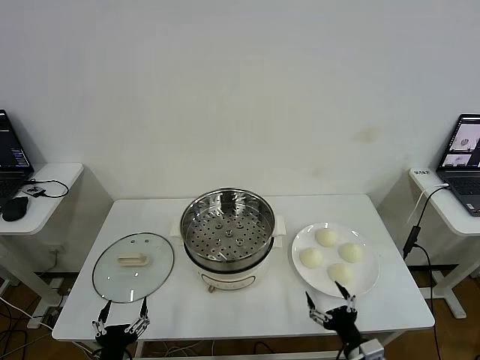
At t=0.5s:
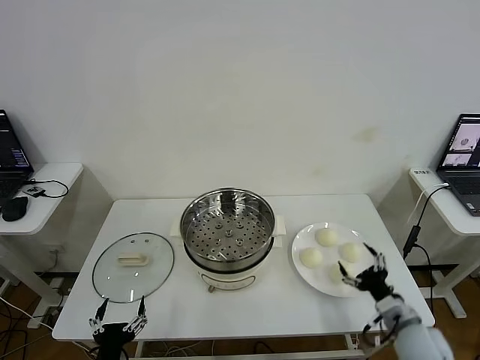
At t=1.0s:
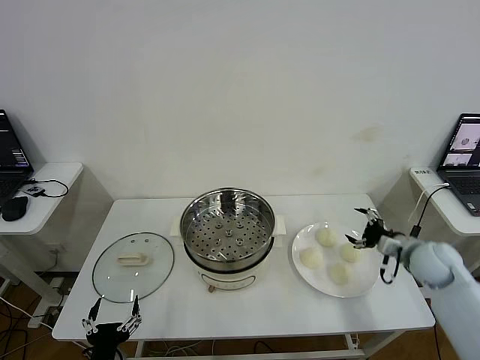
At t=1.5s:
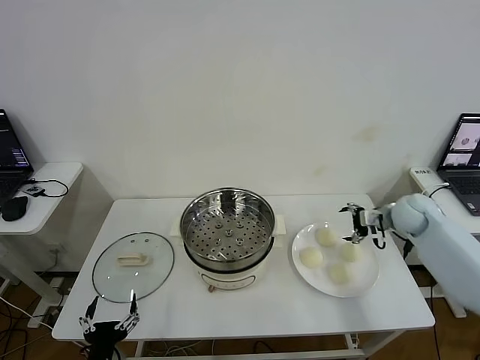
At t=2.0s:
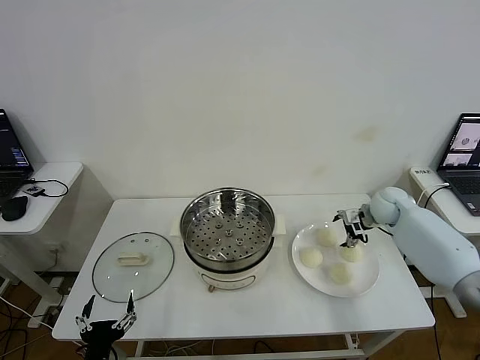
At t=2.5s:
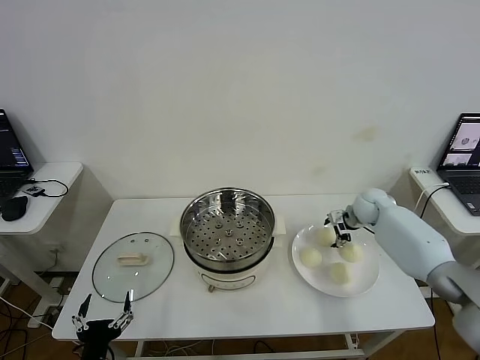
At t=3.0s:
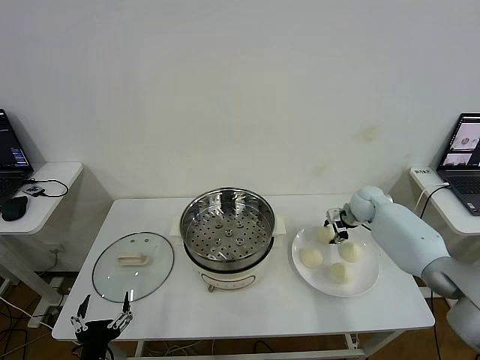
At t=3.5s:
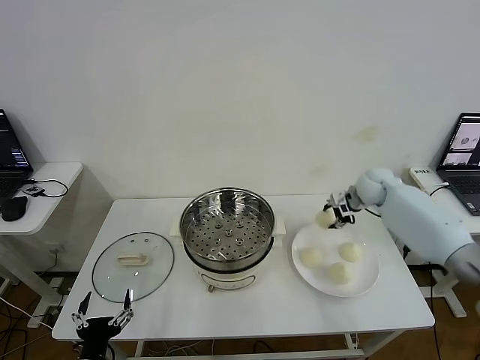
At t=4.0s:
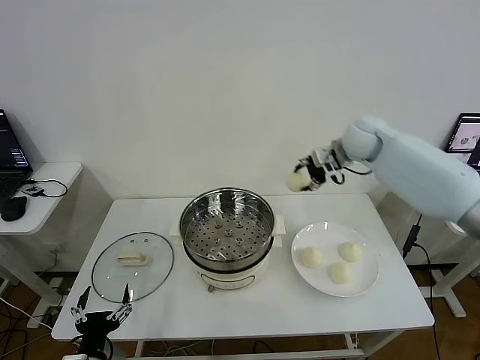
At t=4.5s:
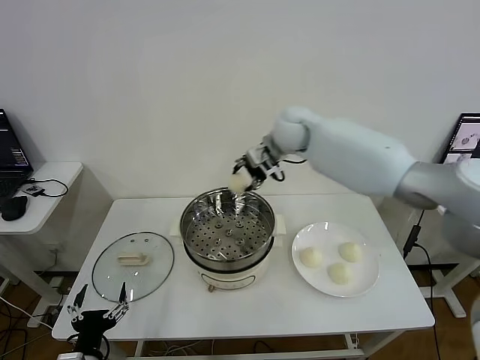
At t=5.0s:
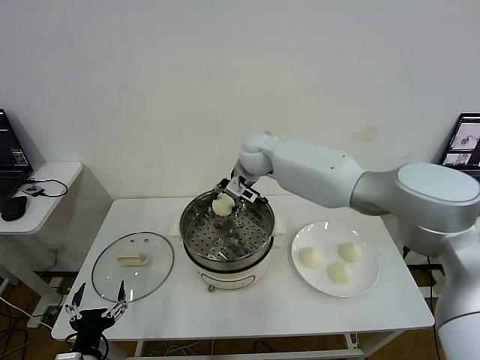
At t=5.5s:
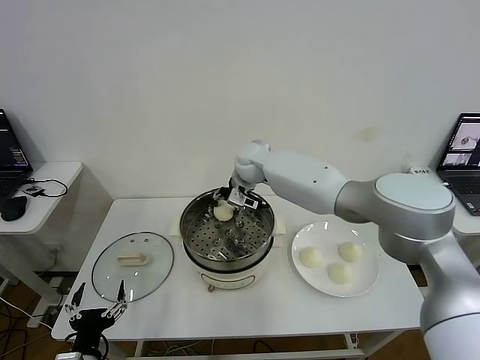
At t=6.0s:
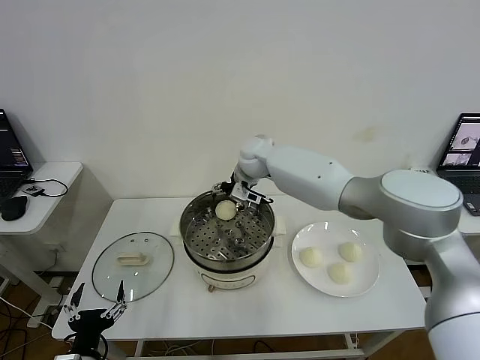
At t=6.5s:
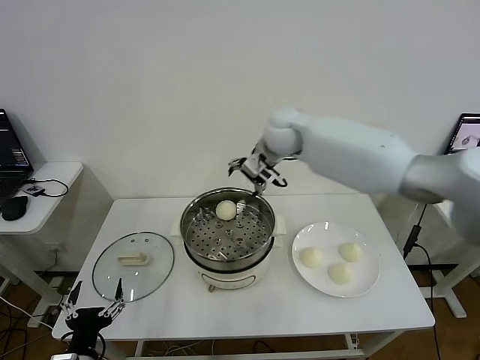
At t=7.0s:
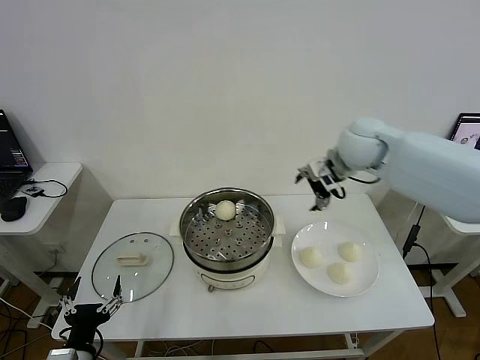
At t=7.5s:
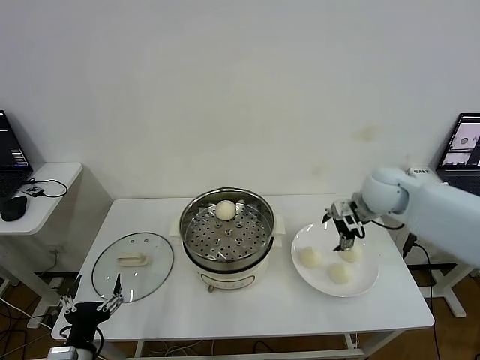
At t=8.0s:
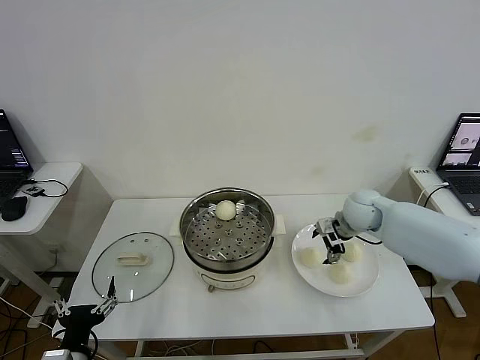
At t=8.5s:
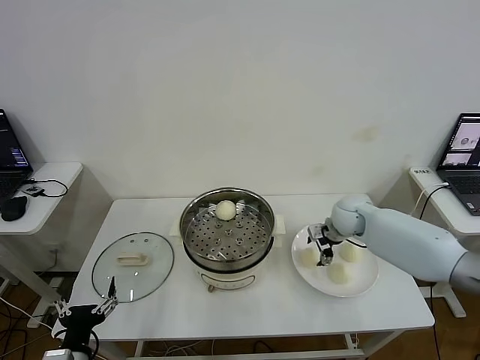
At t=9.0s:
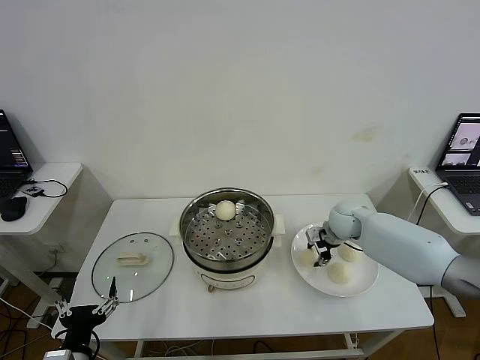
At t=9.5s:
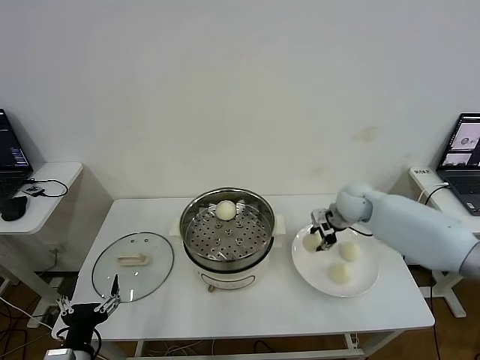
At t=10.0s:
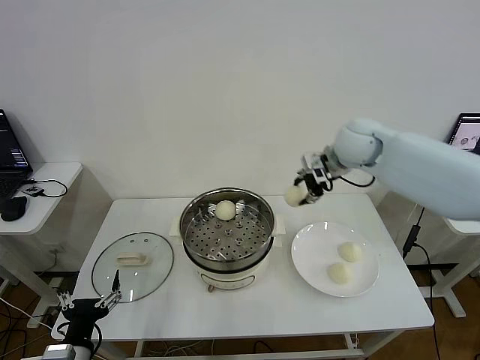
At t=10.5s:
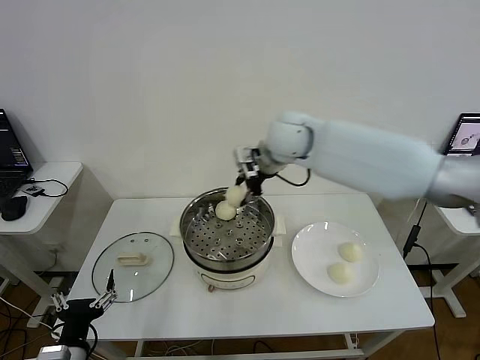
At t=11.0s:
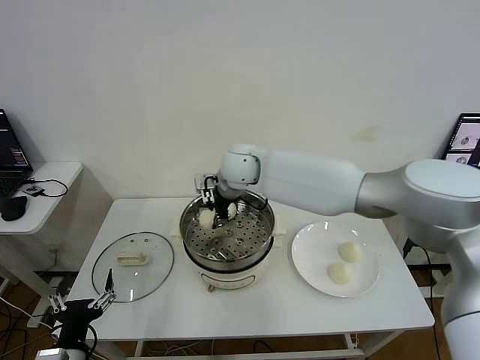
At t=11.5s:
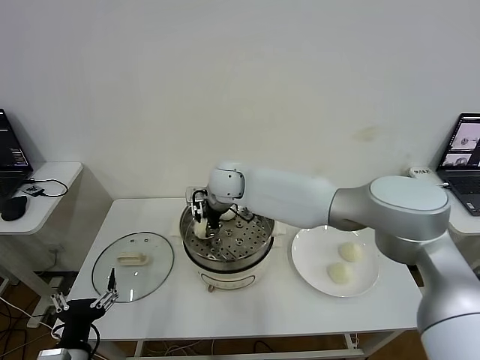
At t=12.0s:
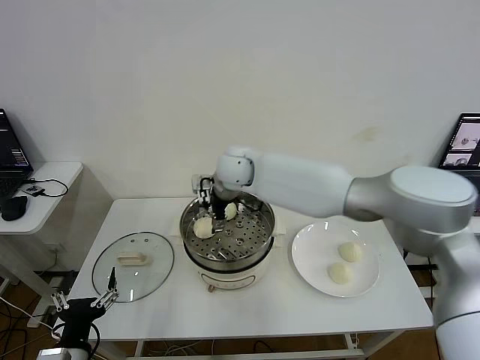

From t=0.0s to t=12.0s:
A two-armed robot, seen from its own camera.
Step, from t=0.0s to t=2.5s: Grasp the baozi in the plate with right gripper.
Step, from t=3.0s to t=5.5s: Place the baozi on the steamer with right gripper.
Step, from t=6.0s to t=9.0s: Grasp the baozi in the plate with right gripper.
Step, from t=9.5s to t=11.5s: Place the baozi on the steamer with right gripper.
From t=2.0s to t=4.0s: The right gripper shifts about 25 cm upward and to the left, and closes its fingers.
From t=4.0s to t=6.0s: The right gripper is displaced to the left by some 20 cm, and opens up.
From t=6.0s to t=8.0s: The right gripper heads to the right and downward, covering about 25 cm.
From t=8.0s to t=10.0s: The right gripper is displaced upward by some 20 cm, and closes its fingers.
From t=10.0s to t=12.0s: The right gripper is displaced to the left by approximately 20 cm, and opens up.

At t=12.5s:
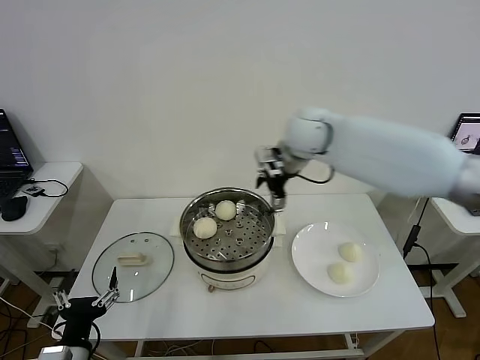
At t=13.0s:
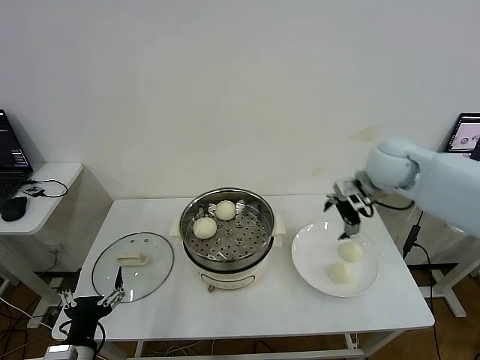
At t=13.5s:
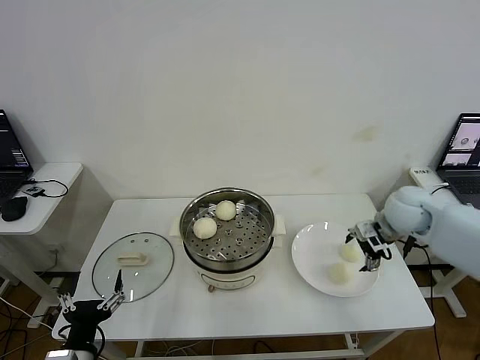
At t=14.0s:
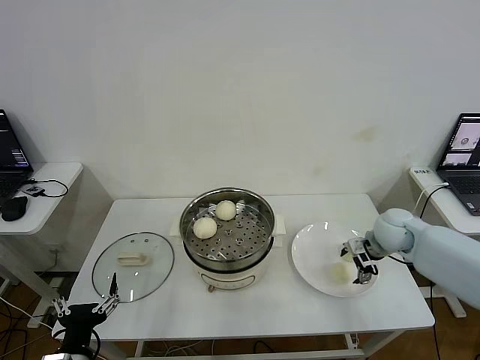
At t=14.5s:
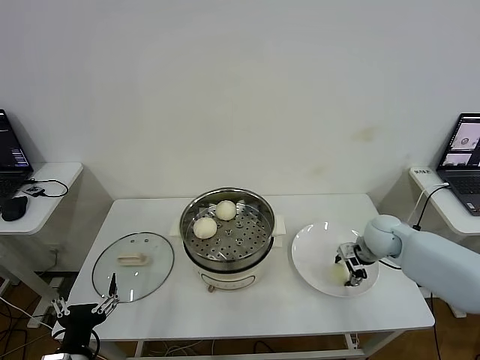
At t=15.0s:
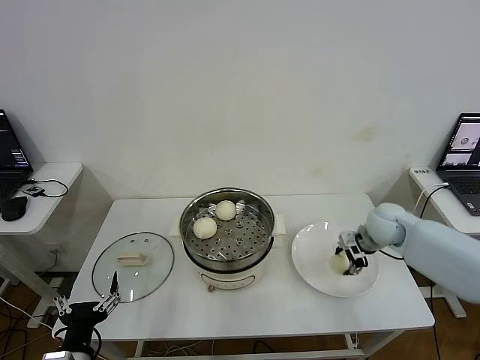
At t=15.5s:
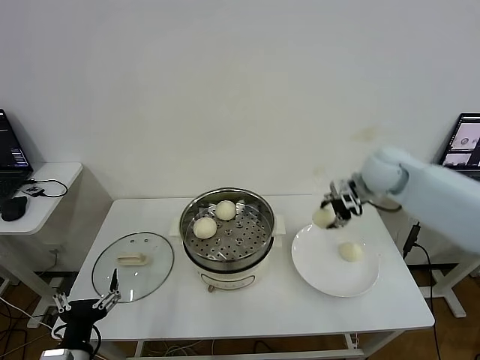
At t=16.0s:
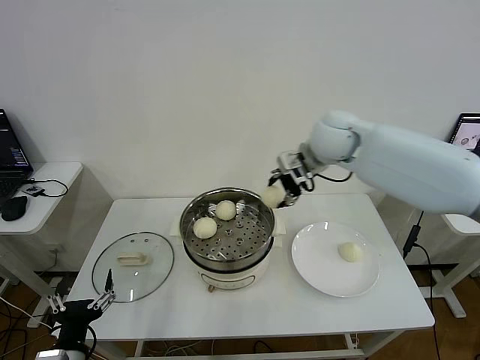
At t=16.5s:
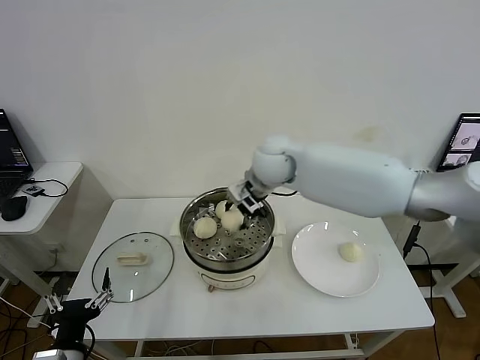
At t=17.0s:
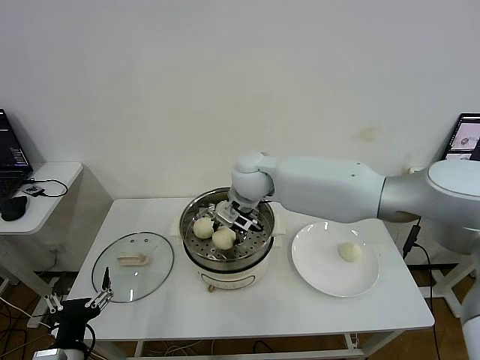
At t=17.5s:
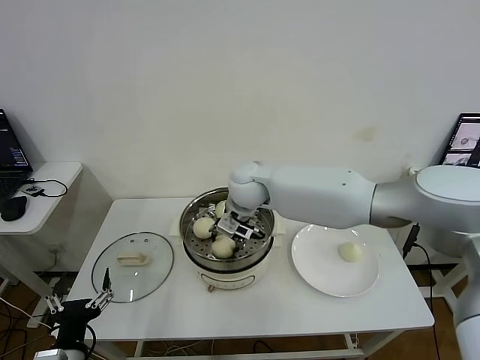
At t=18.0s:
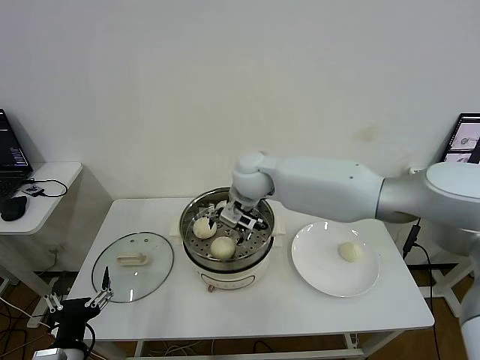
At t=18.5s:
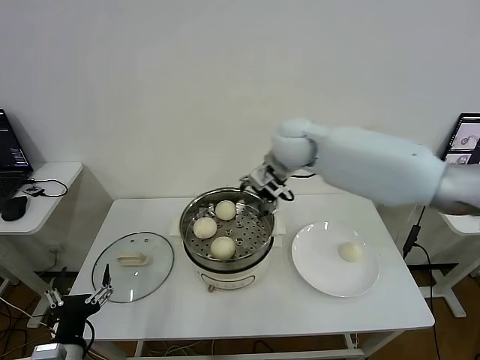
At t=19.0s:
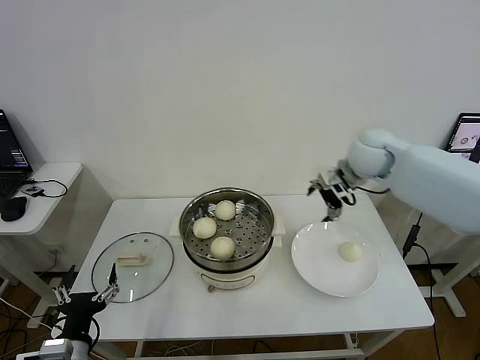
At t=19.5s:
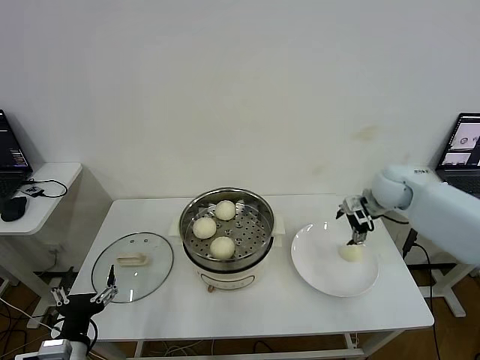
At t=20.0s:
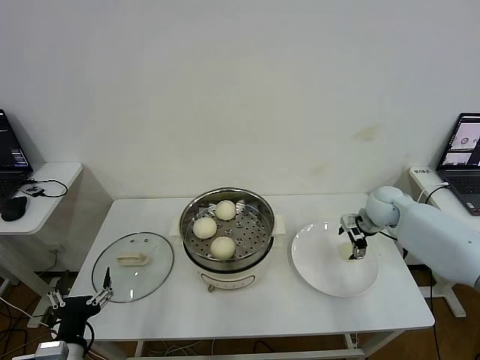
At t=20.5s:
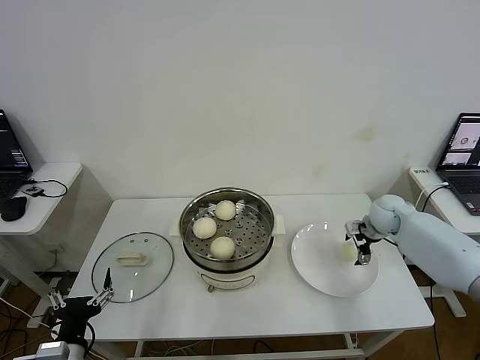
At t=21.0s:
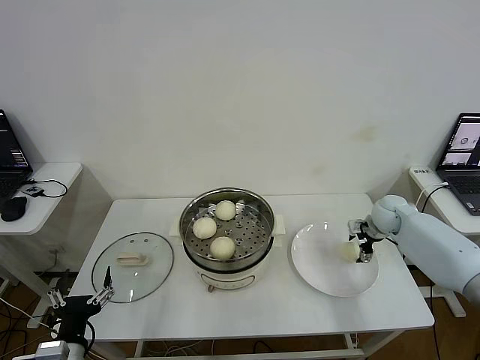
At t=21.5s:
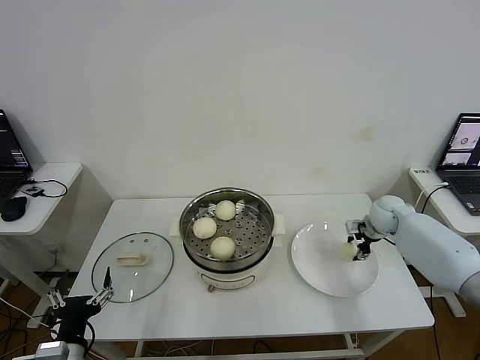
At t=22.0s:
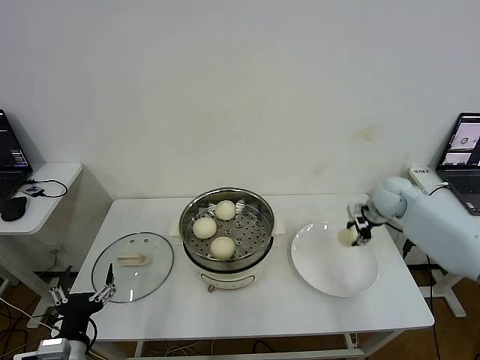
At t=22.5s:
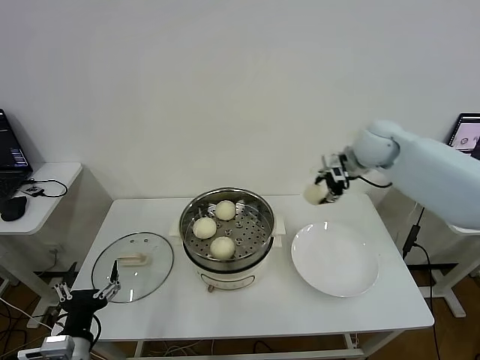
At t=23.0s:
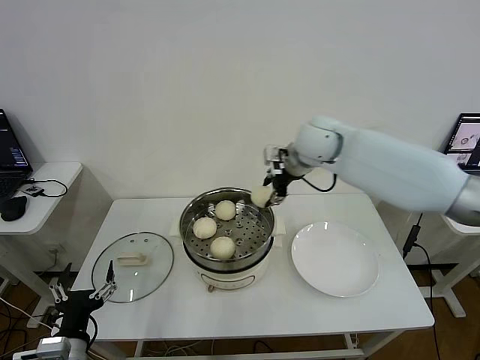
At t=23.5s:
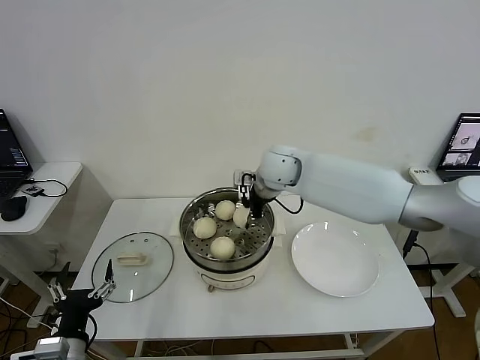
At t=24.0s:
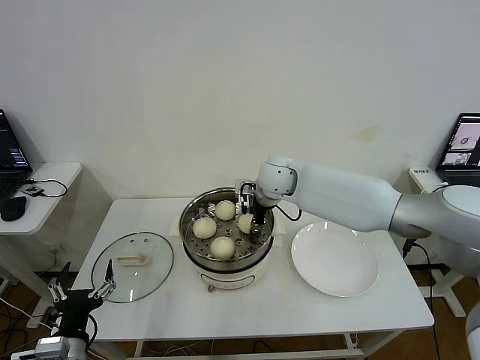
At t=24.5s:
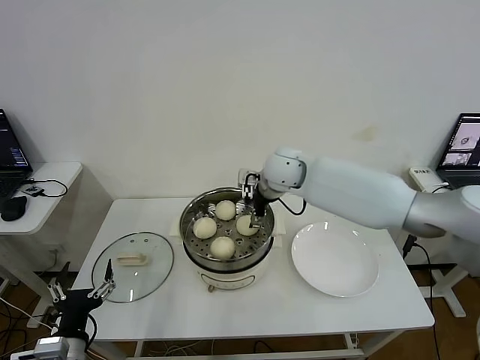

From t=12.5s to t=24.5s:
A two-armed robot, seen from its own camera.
Step, from t=12.5s to t=14.5s: Grasp the baozi in the plate with right gripper.
Step, from t=15.0s to t=17.5s: Place the baozi on the steamer with right gripper.
Step, from t=18.0s to t=21.0s: Grasp the baozi in the plate with right gripper.
Step, from t=21.5s to t=24.0s: Place the baozi on the steamer with right gripper.
From t=12.5s to t=14.5s: The right gripper shifts some 30 cm downward and to the right, and closes.
From t=14.5s to t=16.5s: The right gripper moves to the left and upward, about 35 cm.
From t=16.5s to t=18.5s: The right gripper heads to the right, covering approximately 5 cm, and opens.
From t=18.5s to t=20.5s: The right gripper shifts some 35 cm to the right and downward.
From t=20.5s to t=22.5s: The right gripper is displaced upward and to the left by roughly 25 cm, and closes.
From t=22.5s to t=24.5s: The right gripper heads to the left, covering some 20 cm, and opens up.

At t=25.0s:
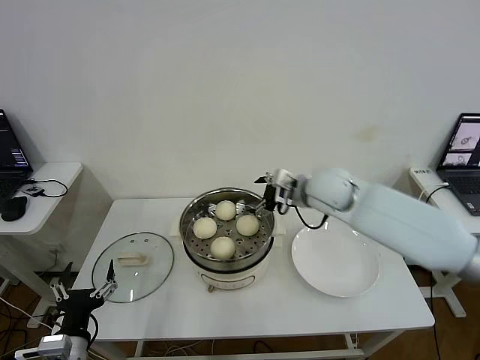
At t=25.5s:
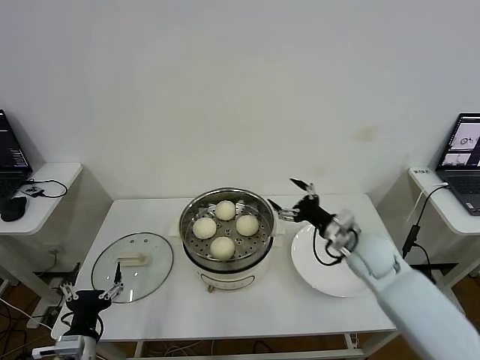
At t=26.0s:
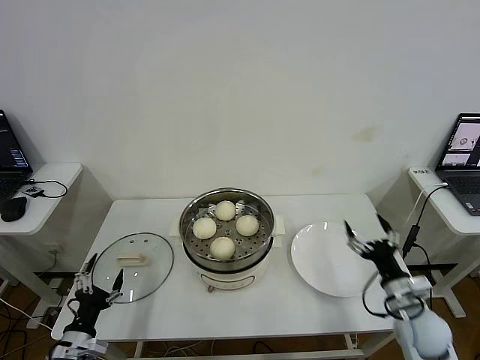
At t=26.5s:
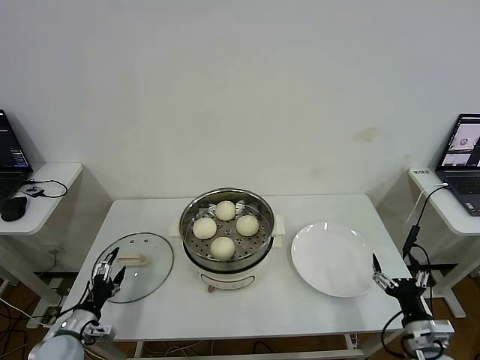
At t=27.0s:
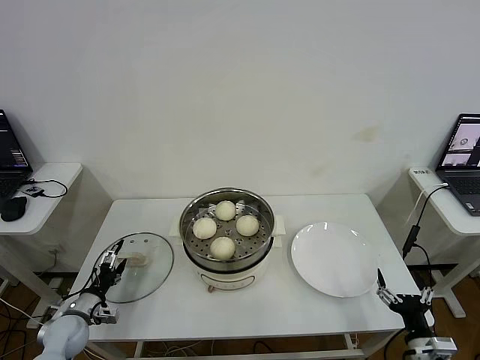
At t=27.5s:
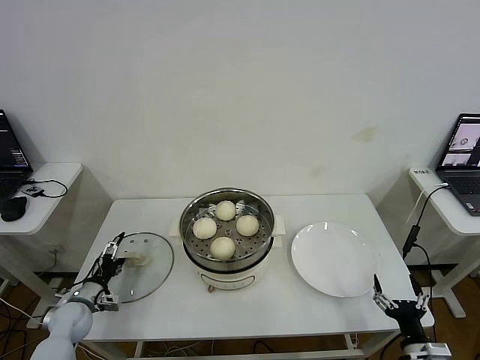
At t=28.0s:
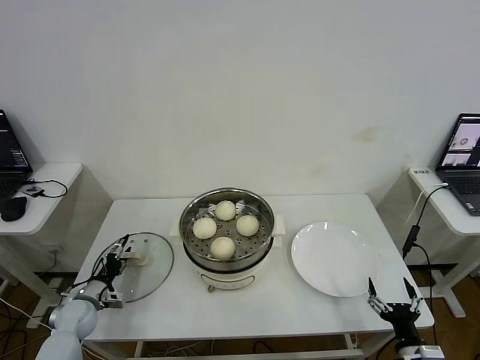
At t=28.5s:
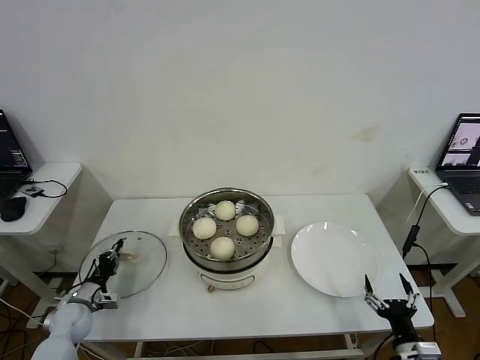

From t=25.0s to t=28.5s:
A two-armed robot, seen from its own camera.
From t=25.0s to t=27.0s: The left gripper goes approximately 20 cm forward, downward and to the left. Meanwhile the right gripper travels backward, downward and to the right by about 50 cm.
From t=27.0s to t=28.5s: The left gripper closes up.
